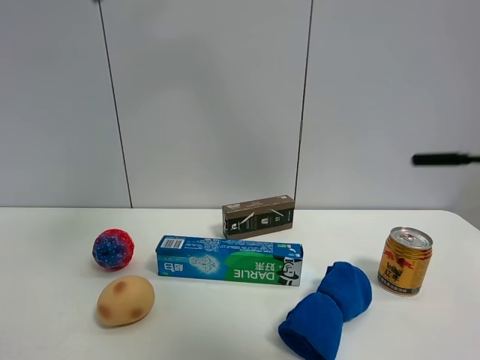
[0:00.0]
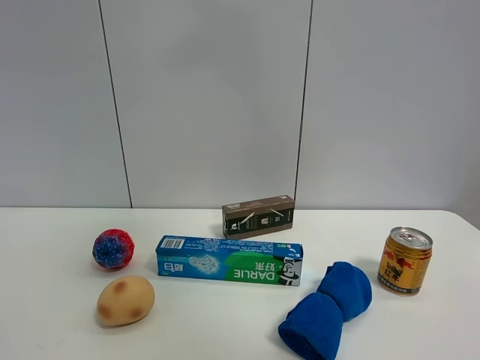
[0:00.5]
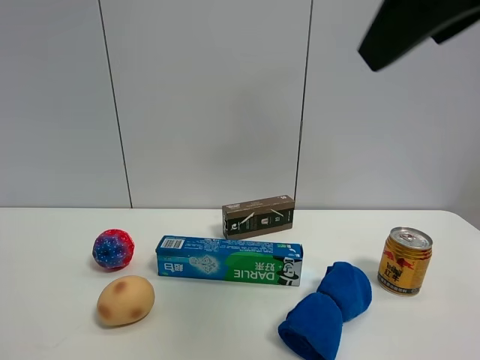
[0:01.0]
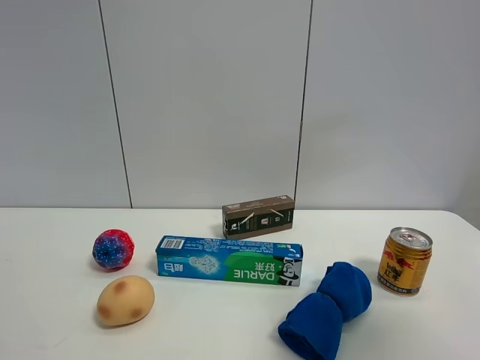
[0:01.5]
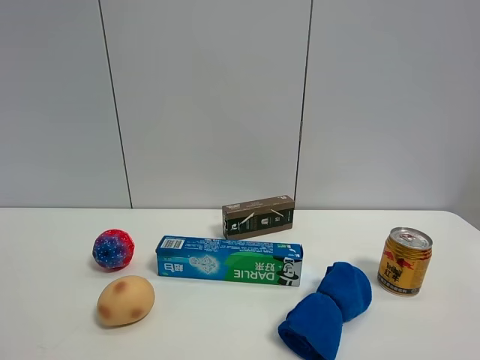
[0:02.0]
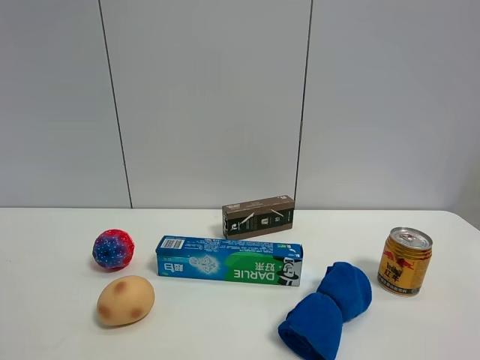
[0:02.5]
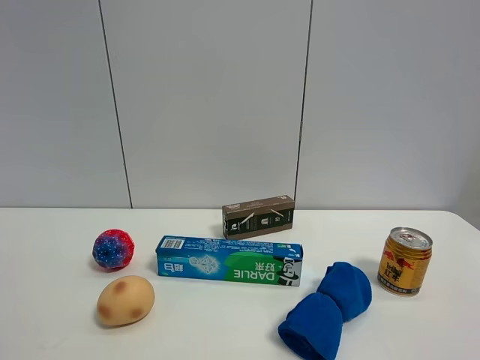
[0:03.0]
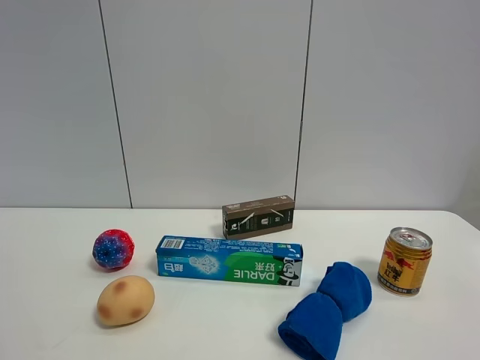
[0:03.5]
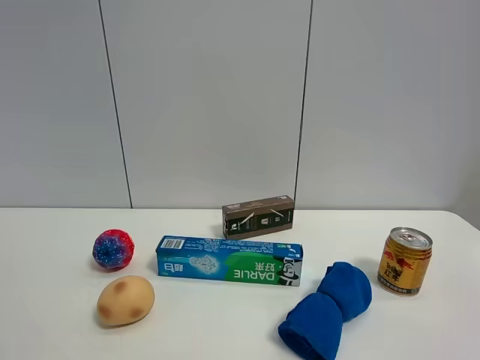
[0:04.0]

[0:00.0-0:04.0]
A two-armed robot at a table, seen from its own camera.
Task of the whole recording: the gripper move the object.
0:00.0 to 0:02.0: The right gripper shifts about 50 cm to the right, backward and downward.

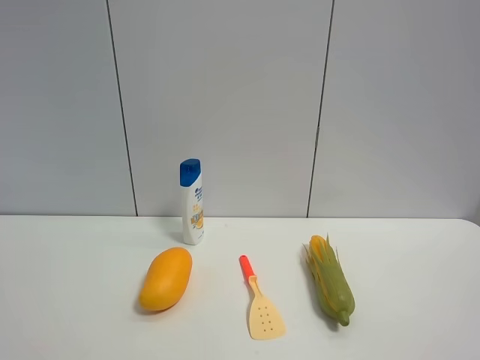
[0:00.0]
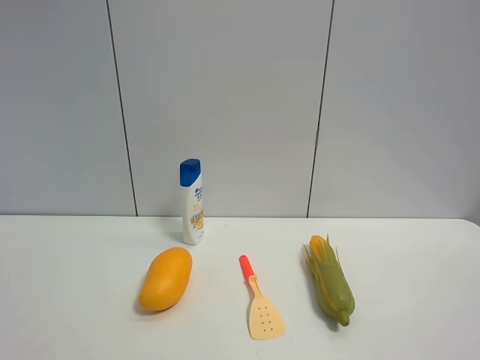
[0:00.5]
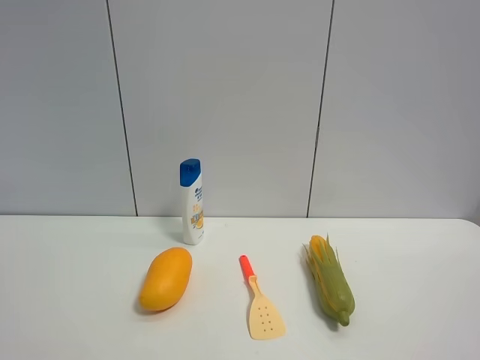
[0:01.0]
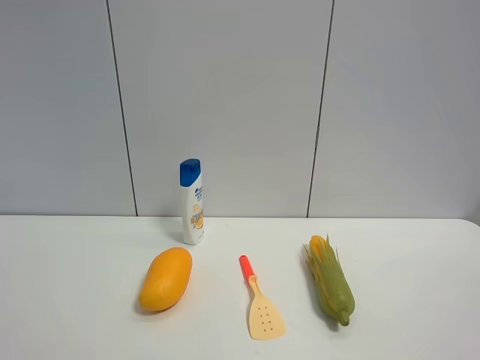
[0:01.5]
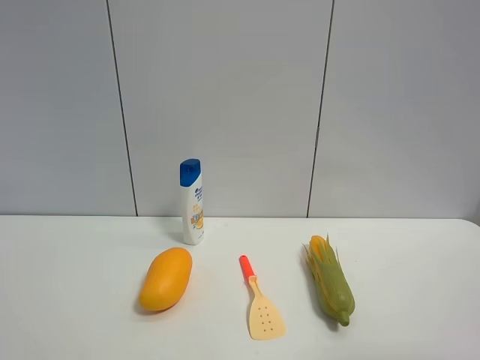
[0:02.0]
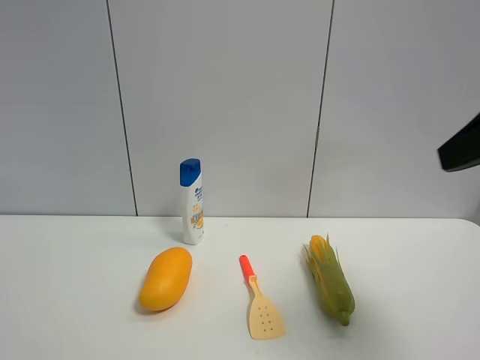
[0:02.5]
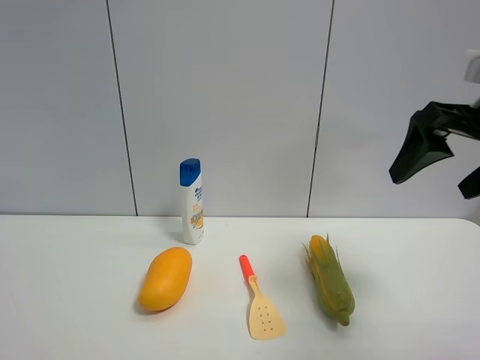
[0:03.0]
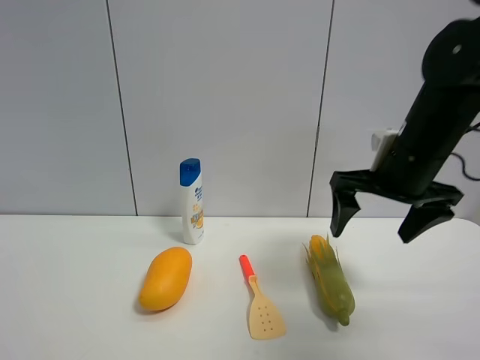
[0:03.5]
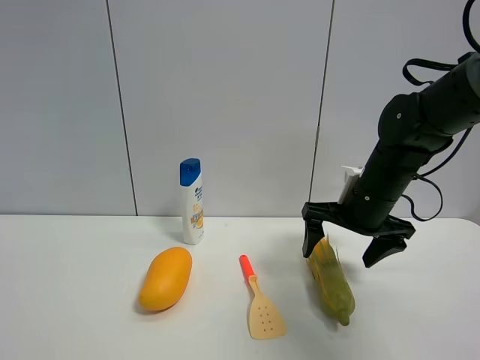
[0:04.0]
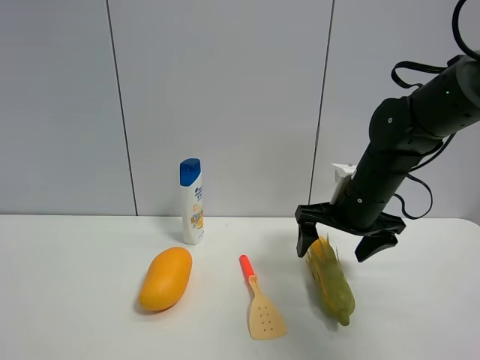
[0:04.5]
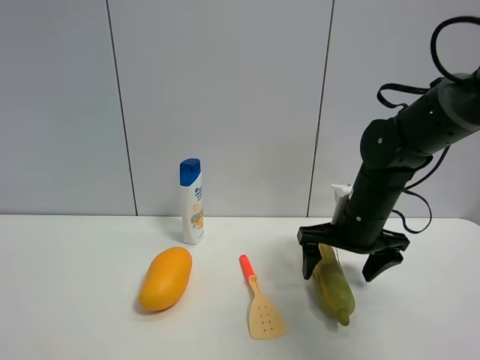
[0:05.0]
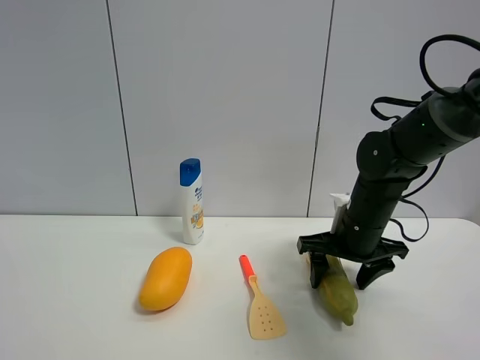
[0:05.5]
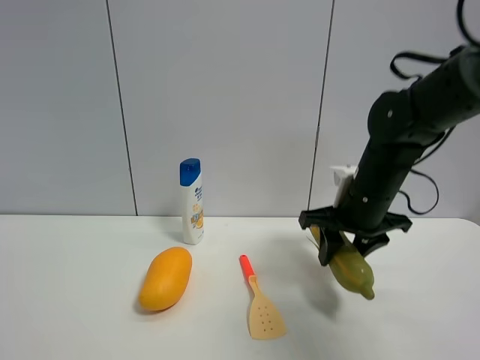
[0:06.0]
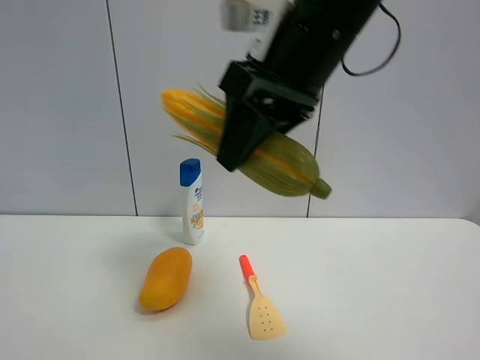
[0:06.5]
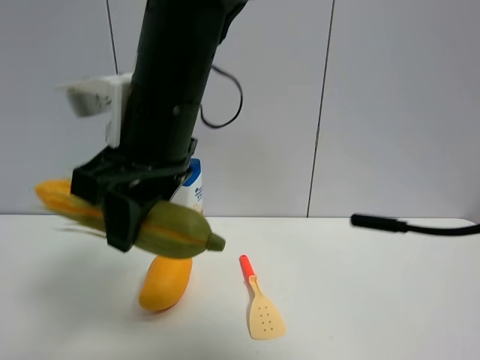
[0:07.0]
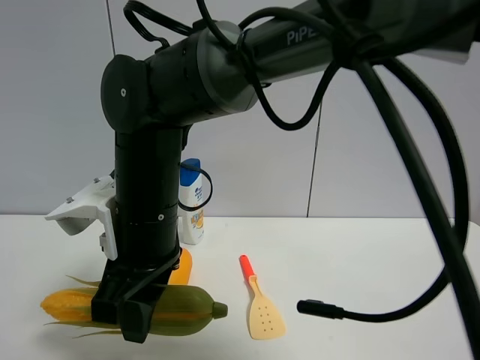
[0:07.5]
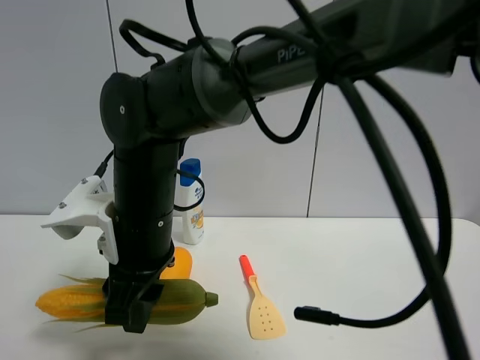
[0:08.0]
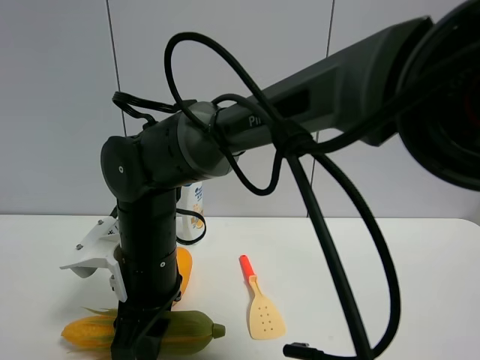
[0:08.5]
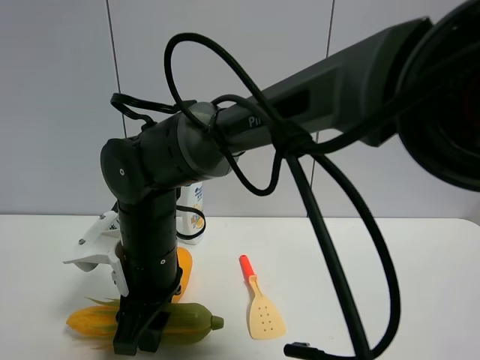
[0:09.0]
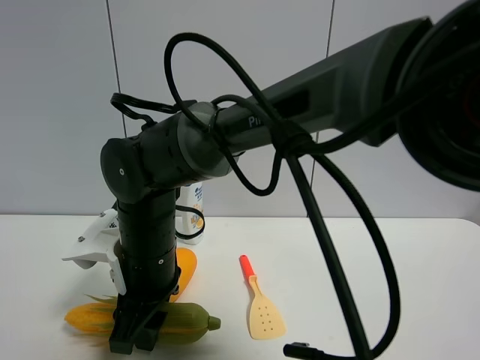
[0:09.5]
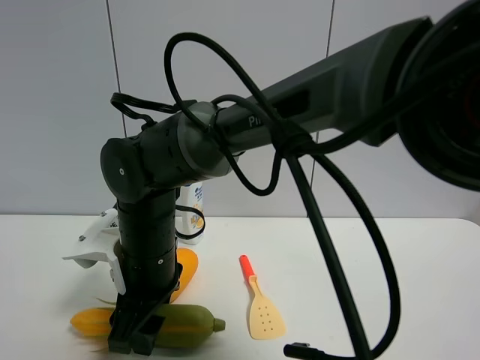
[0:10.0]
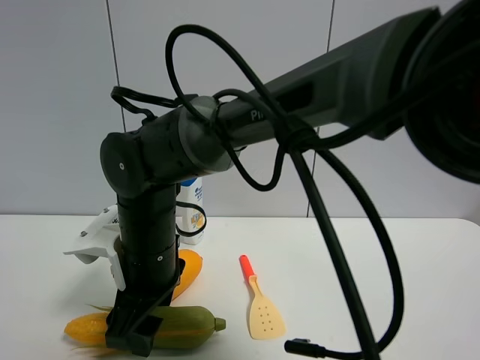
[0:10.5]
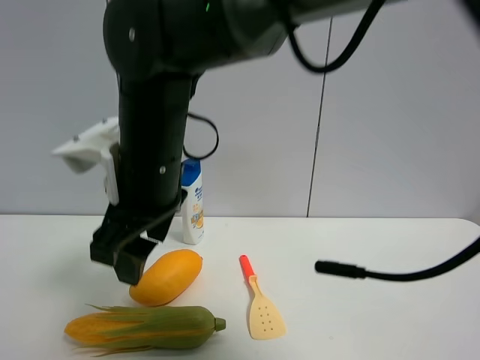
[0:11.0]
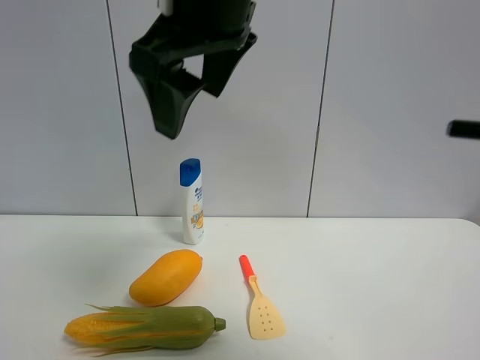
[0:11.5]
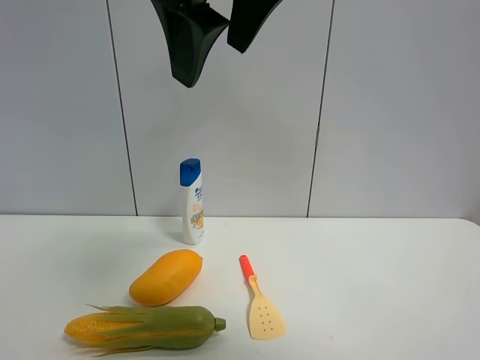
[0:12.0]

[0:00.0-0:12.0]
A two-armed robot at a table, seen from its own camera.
Task of the whole recording: the gripper move the object.
Step, 0:00.0 to 0:05.5: Grasp the corn with the right gripper.
Step, 0:06.0 to 0:10.0: Place the corn on the table with the right gripper.
0:02.0 to 0:04.0: The right gripper heads forward and downward, covering some 40 cm.
0:04.0 to 0:06.0: The right gripper closes.
0:06.0 to 0:08.0: The right gripper goes some 25 cm to the left.
0:10.0 to 0:12.0: The right gripper goes some 30 cm upward, and opens up.

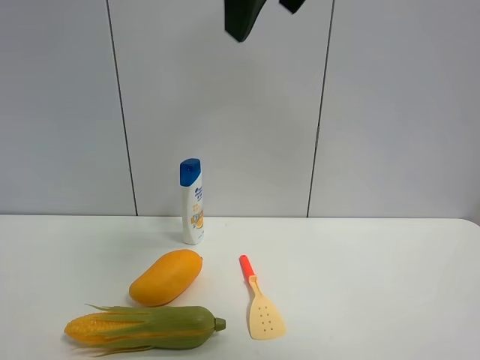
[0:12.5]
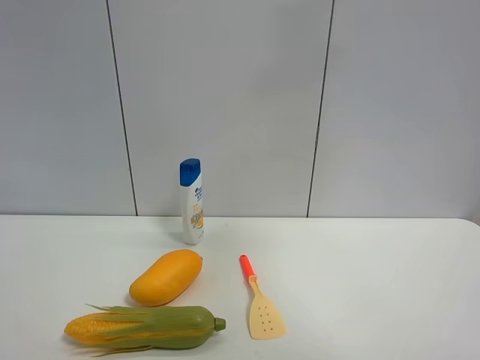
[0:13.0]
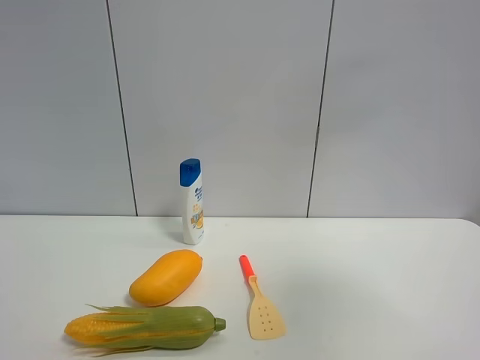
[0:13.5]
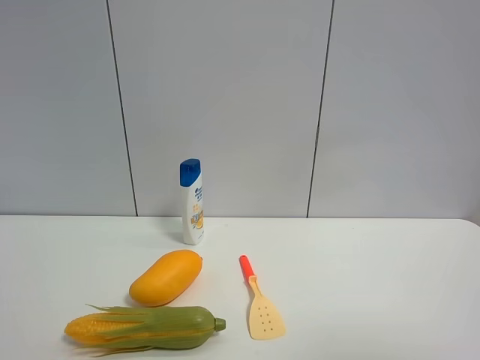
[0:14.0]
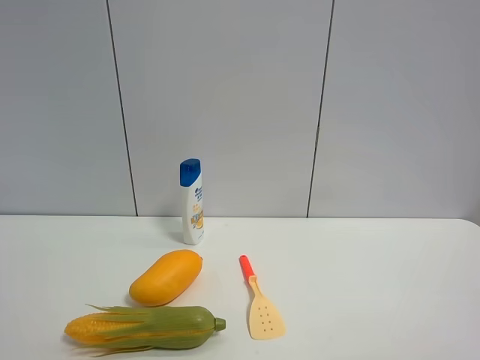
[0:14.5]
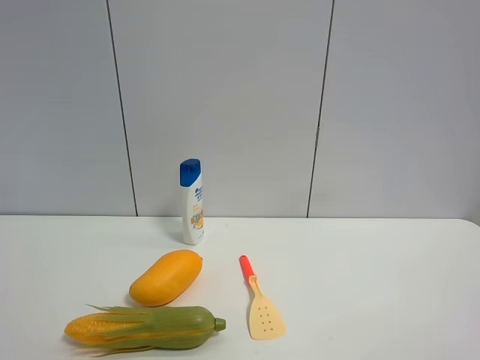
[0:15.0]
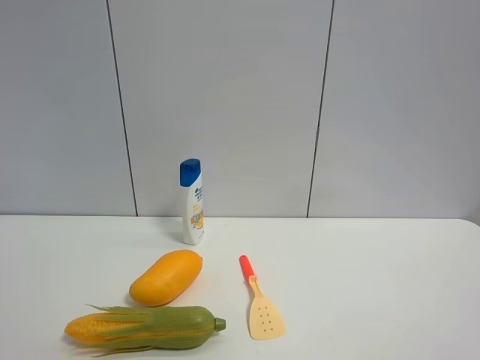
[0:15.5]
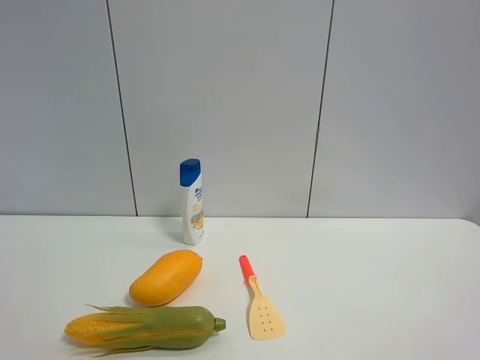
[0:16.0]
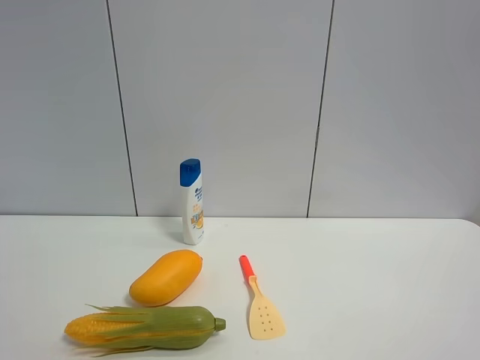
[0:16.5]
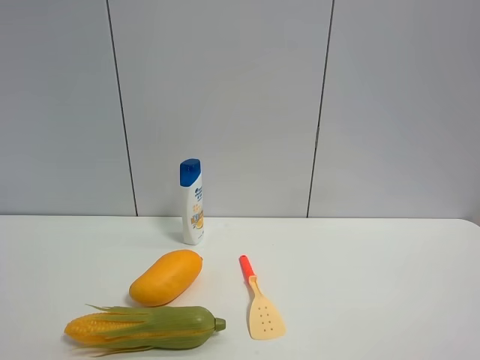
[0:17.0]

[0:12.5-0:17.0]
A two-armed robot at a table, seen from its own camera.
Task of the whole recording: the gripper move the object.
0:12.5 to 0:14.5: The right gripper heads backward, to the right and downward, covering some 35 cm.

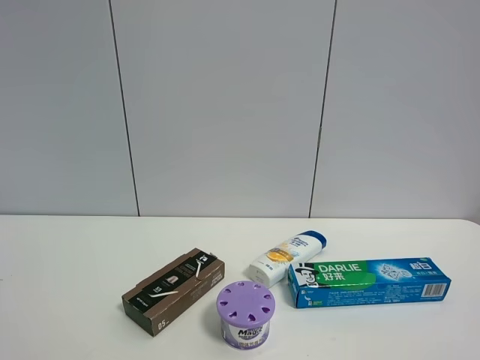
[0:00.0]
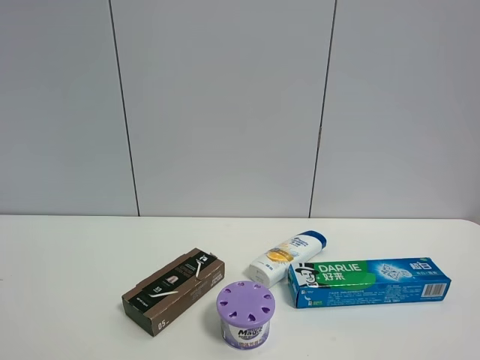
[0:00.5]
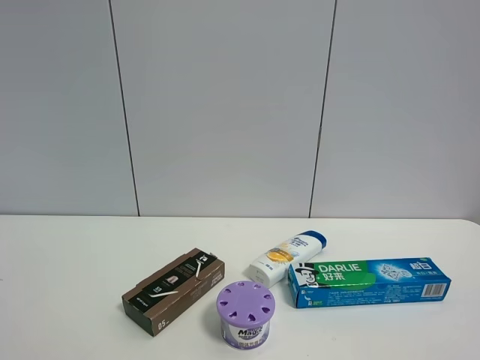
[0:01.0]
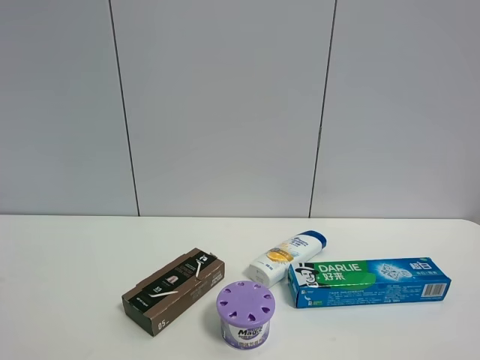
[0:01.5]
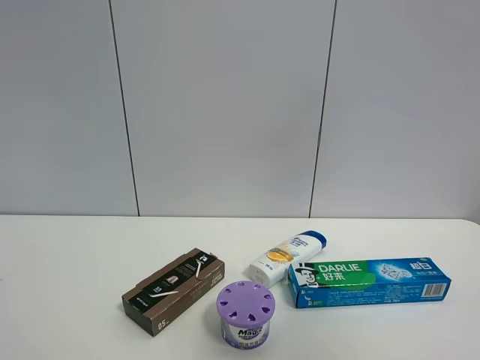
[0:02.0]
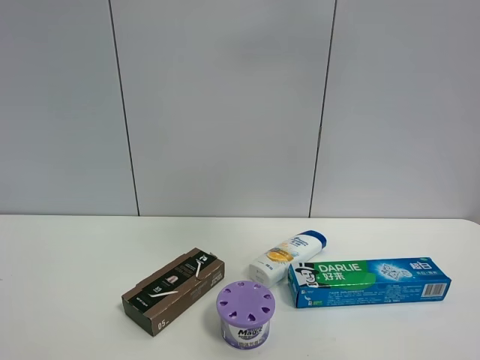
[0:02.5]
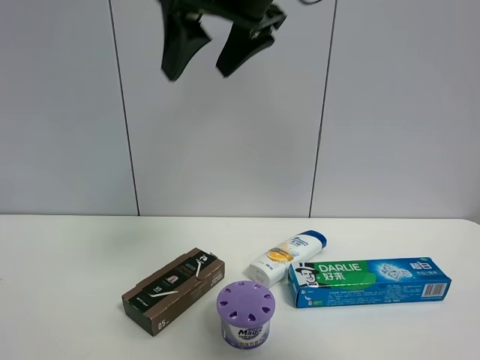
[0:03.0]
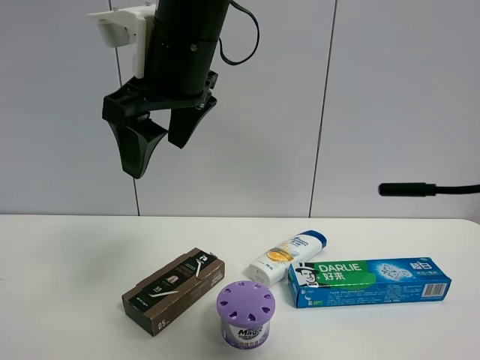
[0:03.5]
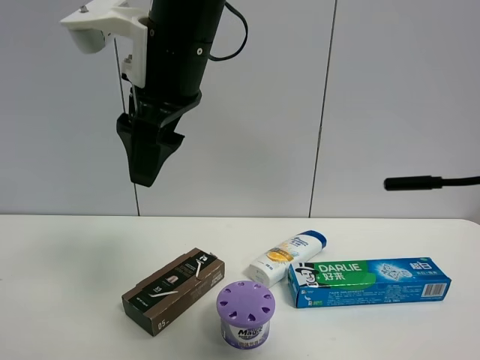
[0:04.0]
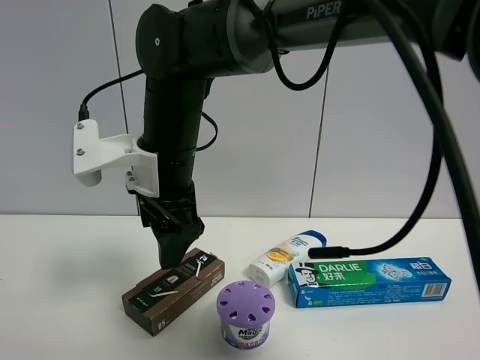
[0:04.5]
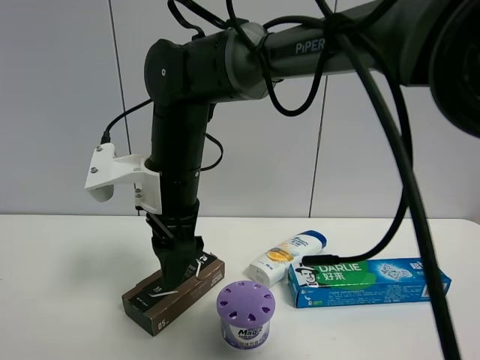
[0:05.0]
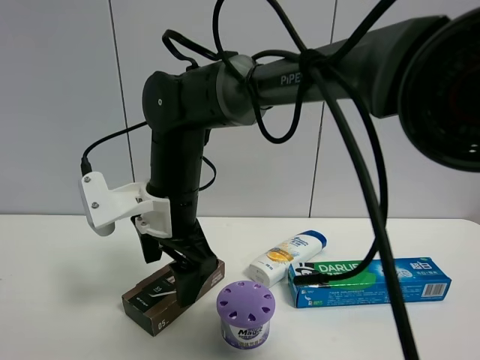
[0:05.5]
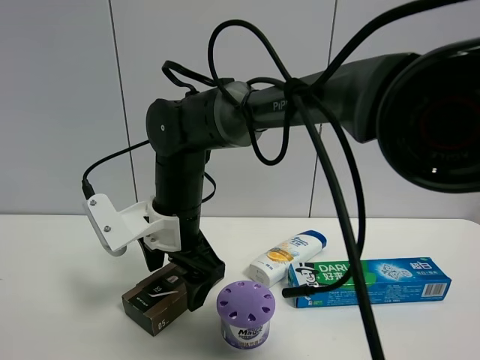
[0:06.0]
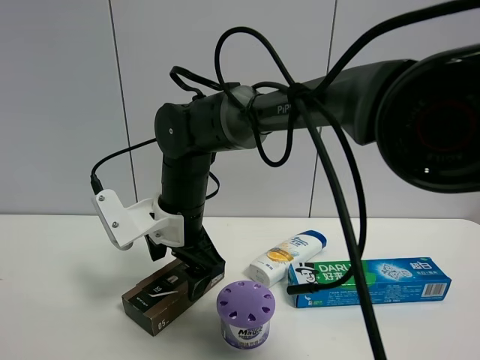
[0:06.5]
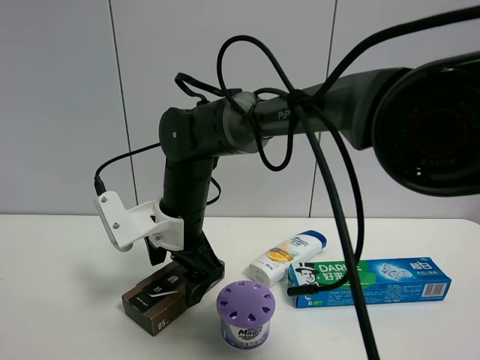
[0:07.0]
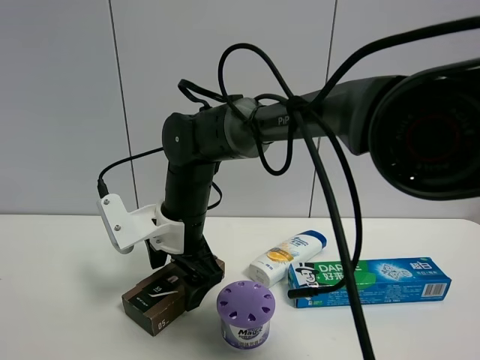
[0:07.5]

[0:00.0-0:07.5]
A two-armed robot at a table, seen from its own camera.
Task of the whole recording: the gripper move the object.
0:00.0 to 0:02.0: The right gripper heads upward, covering about 15 cm.
0:02.0 to 0:04.0: The right gripper goes some 40 cm to the left and forward.
0:04.0 to 0:05.5: The right gripper moves downward, approximately 15 cm, and opens its fingers.
